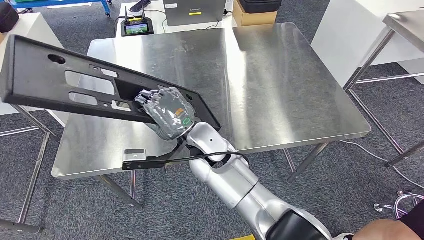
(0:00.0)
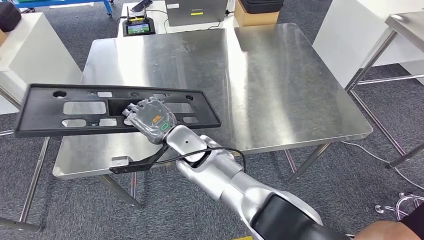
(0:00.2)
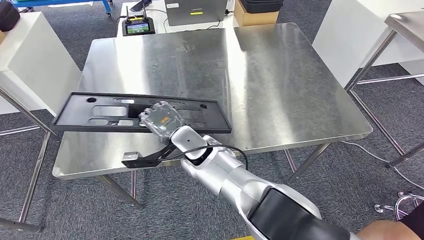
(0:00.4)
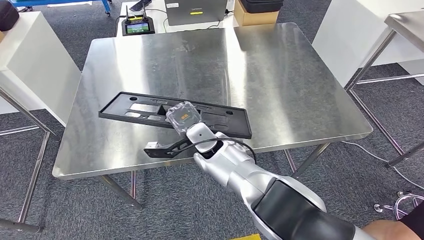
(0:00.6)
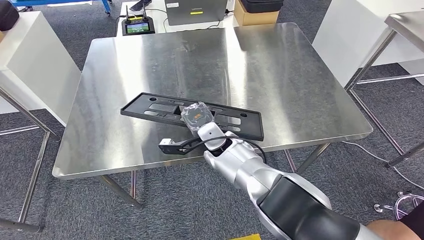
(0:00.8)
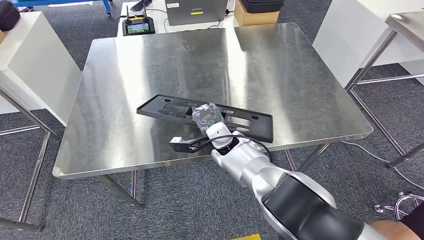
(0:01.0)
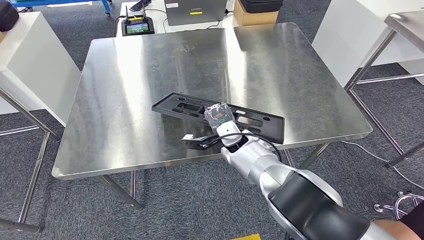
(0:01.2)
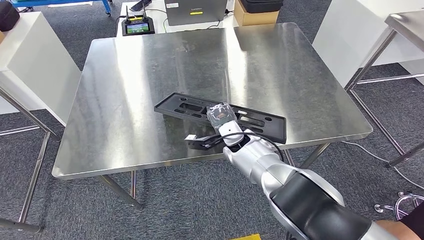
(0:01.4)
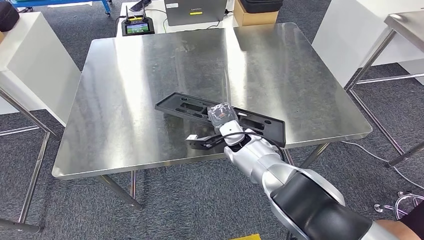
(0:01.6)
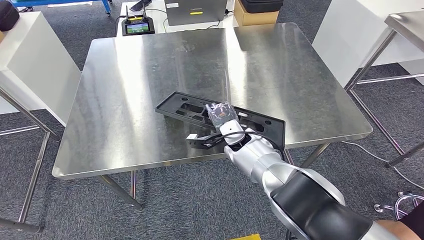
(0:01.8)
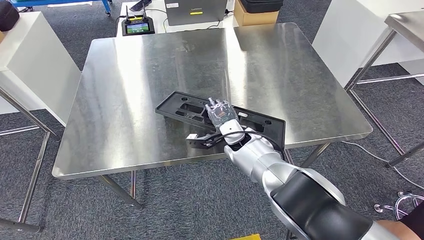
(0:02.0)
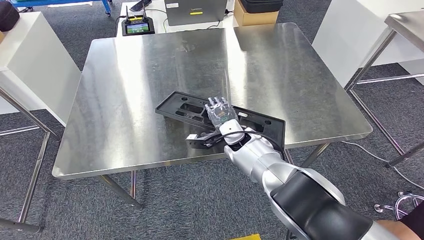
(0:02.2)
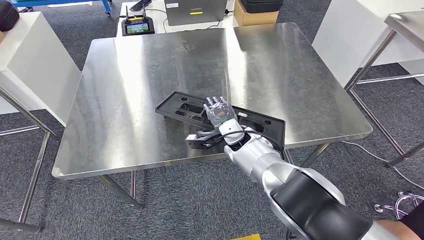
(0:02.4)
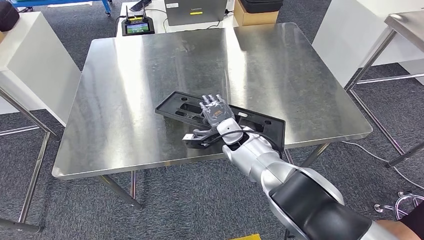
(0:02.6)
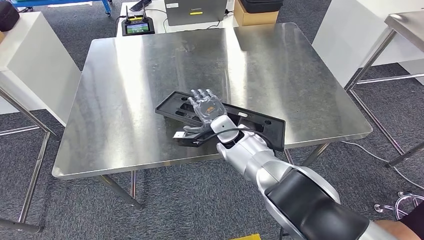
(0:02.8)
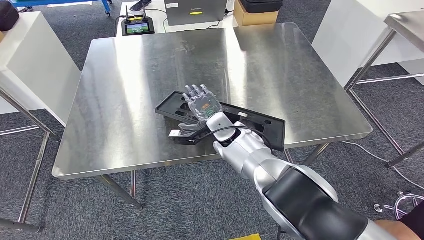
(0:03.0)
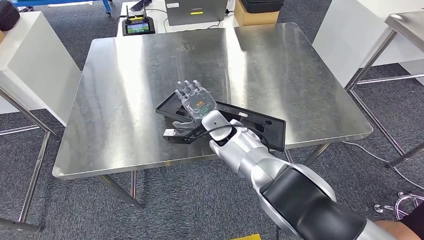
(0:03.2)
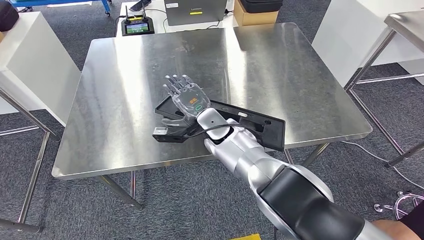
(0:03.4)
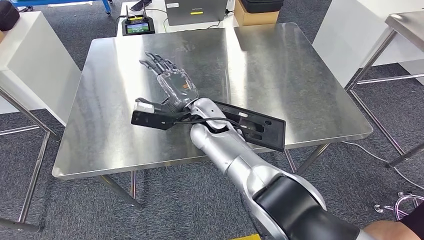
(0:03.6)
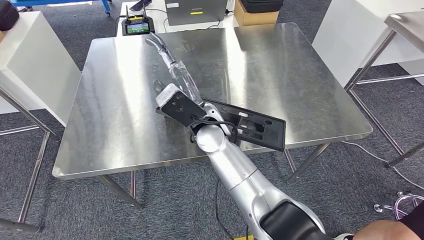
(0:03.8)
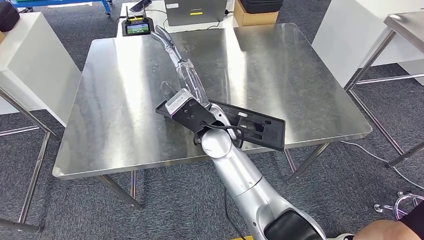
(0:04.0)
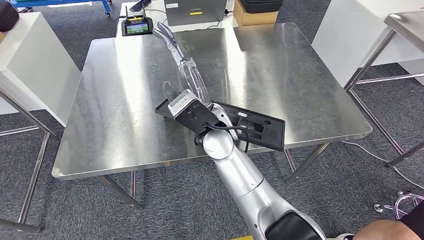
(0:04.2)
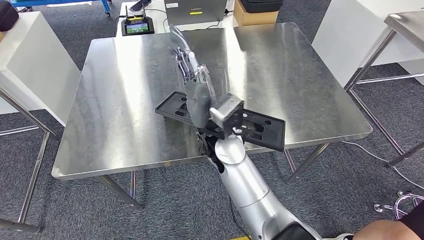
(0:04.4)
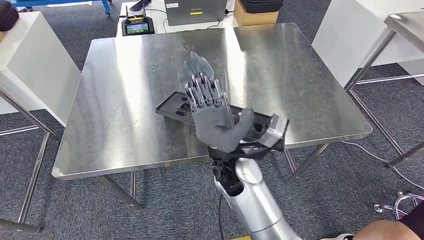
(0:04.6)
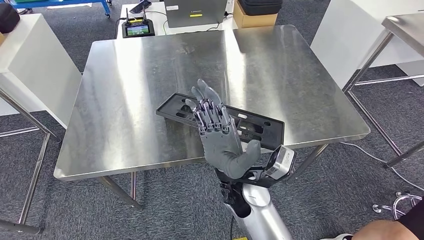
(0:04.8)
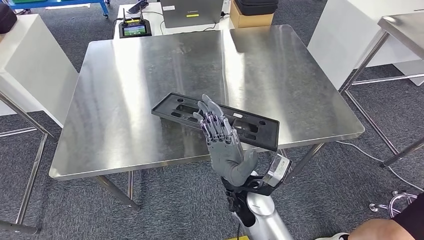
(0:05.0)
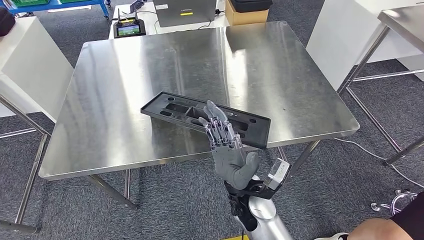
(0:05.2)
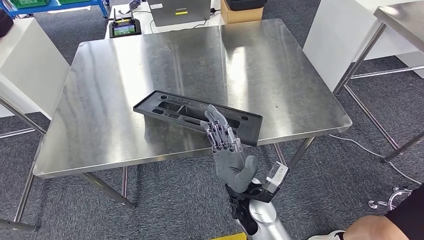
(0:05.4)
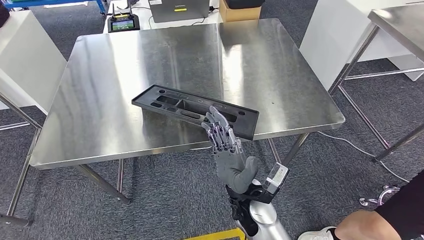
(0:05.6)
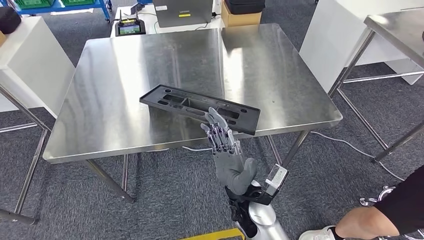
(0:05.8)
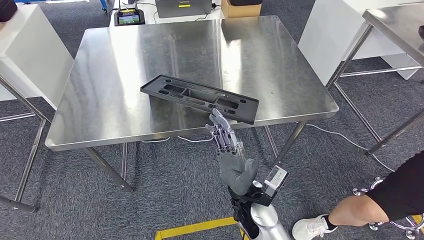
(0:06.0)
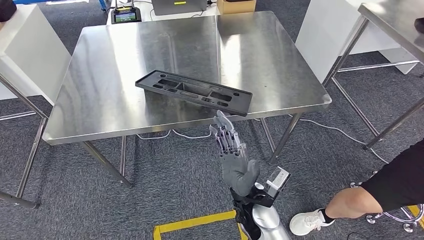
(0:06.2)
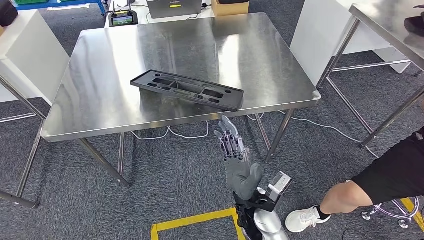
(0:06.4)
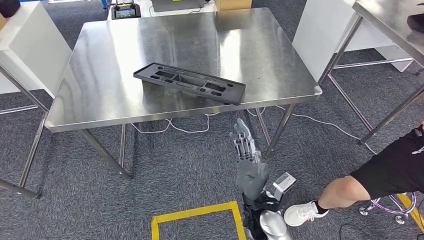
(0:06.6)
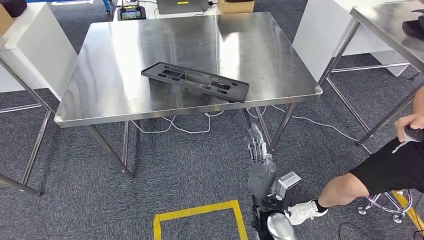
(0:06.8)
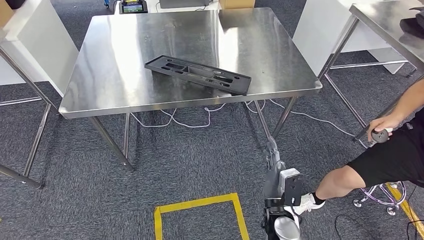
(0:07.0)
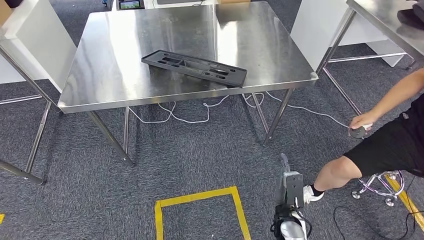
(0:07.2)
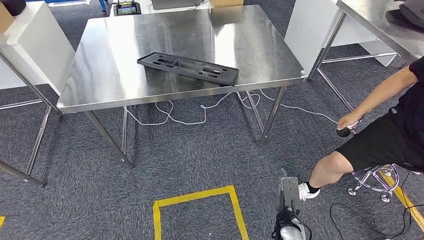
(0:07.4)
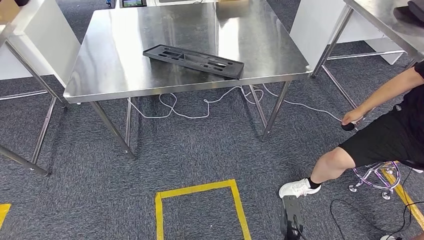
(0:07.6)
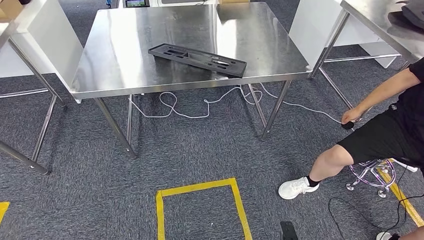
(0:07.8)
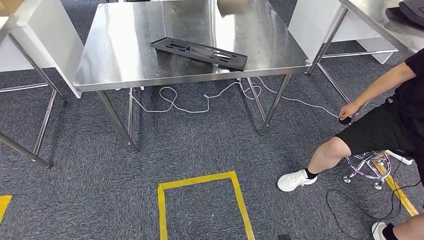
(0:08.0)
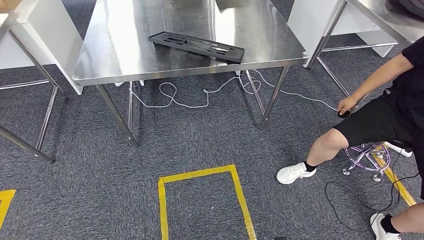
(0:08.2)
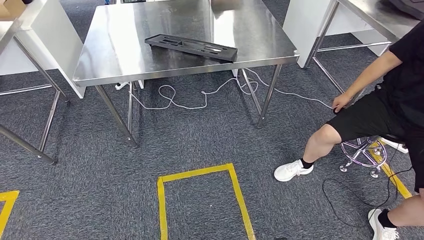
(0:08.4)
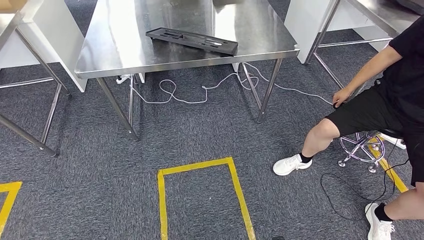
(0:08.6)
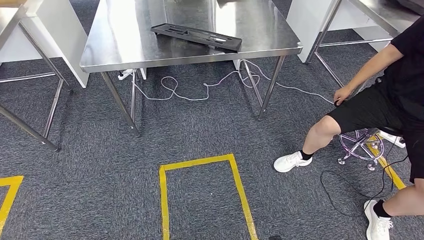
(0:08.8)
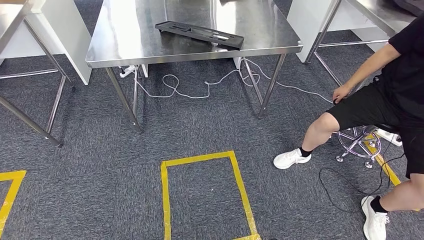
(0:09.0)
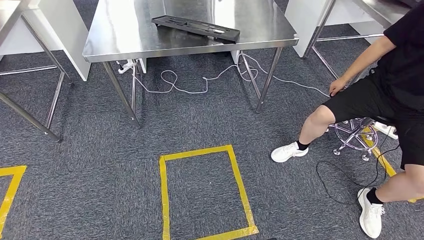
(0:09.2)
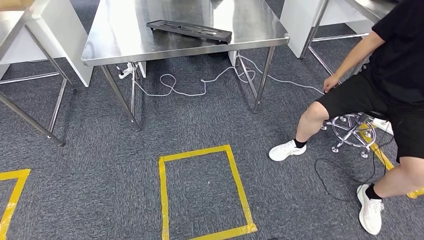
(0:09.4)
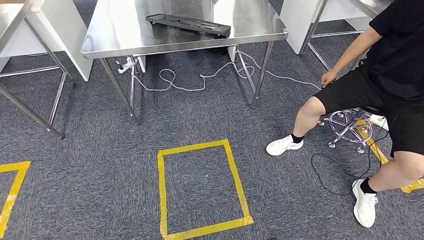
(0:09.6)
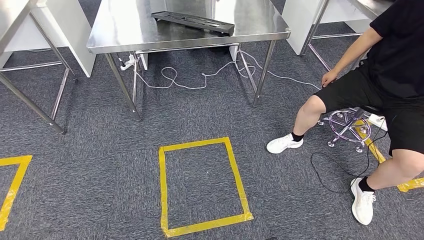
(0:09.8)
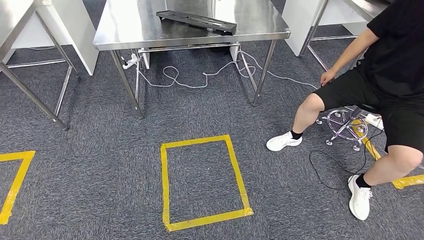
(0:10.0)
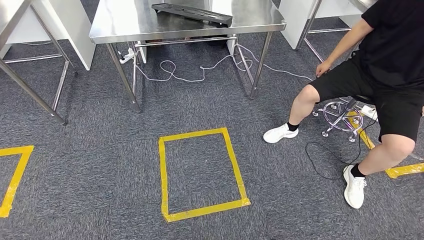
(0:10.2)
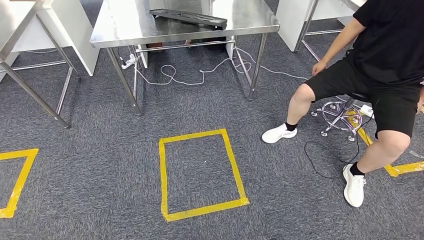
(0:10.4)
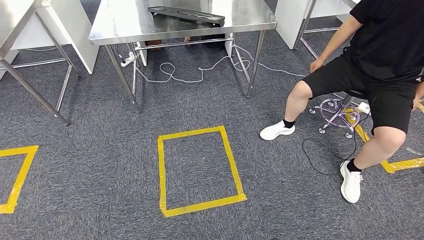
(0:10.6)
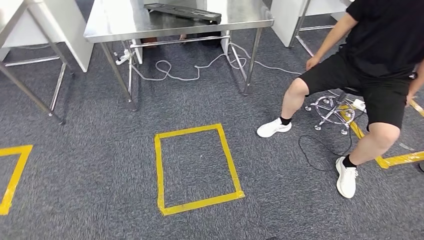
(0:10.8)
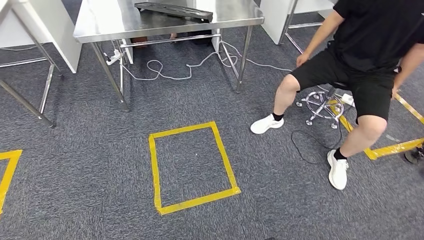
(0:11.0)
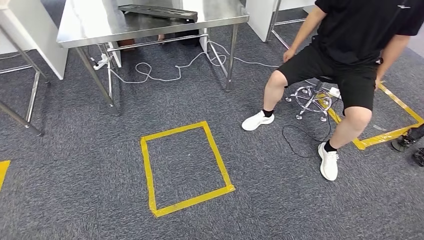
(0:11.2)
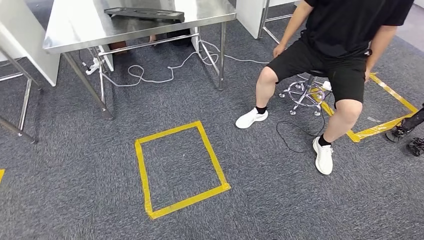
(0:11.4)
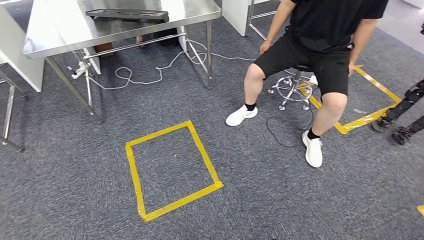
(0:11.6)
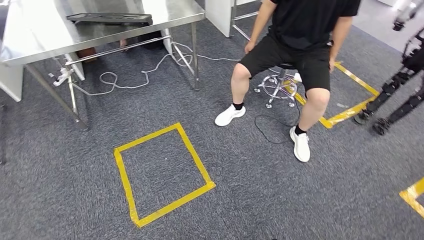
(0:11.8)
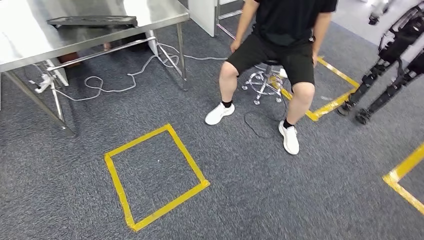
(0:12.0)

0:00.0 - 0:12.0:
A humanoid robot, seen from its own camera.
Step, 0:00.0 - 0:08.6: Insert the large material into the corresponding slot on the workbench.
0:01.6 - 0:03.0: The hands move only a little.
0:03.0 - 0:04.4: The right hand travels upward and backward by approximately 15 cm.

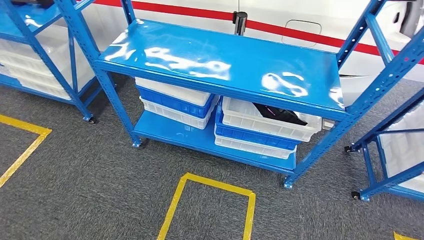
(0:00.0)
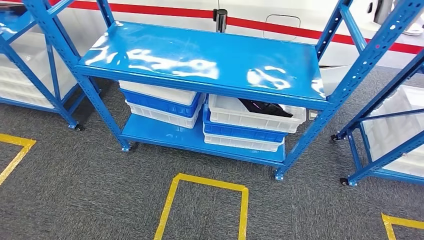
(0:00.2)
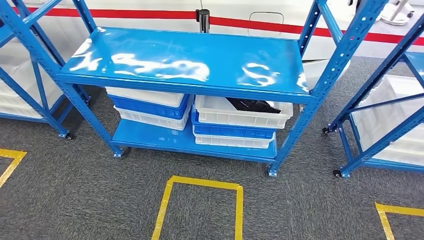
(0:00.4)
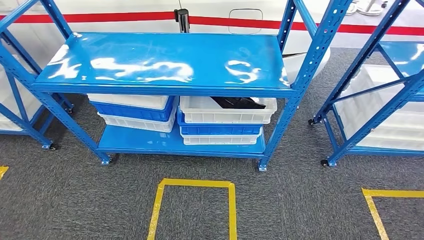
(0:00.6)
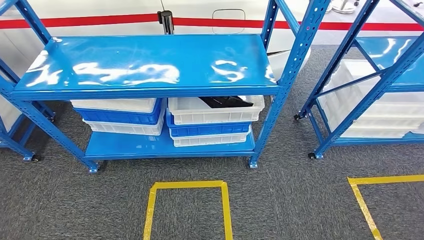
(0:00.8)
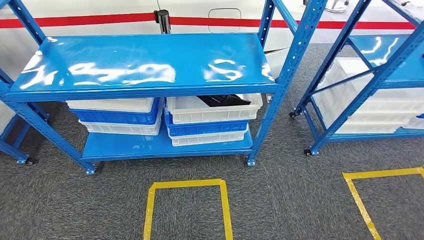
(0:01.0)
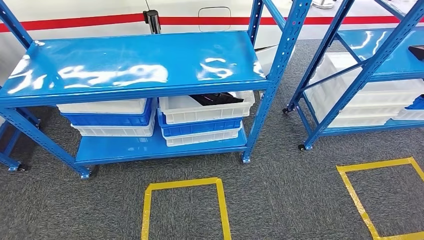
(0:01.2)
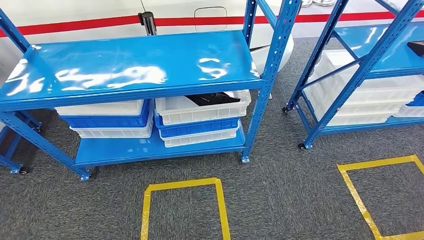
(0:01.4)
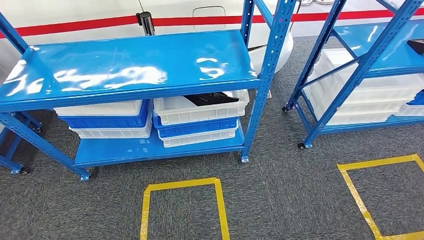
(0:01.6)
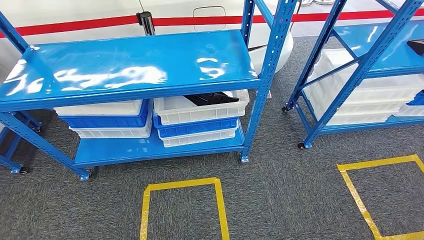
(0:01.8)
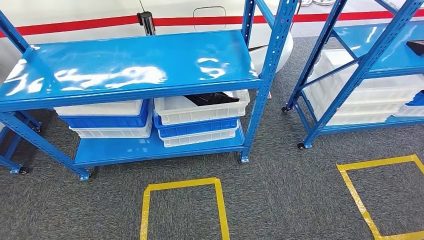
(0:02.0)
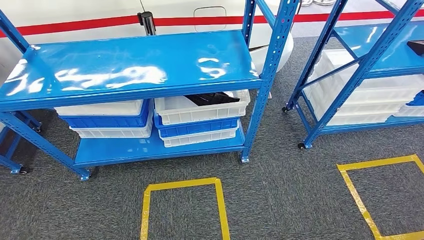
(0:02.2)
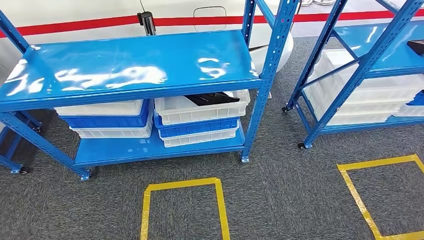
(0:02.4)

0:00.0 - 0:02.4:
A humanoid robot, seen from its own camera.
Step, 0:00.0 - 0:02.2: Move to the initial position of the shelf.

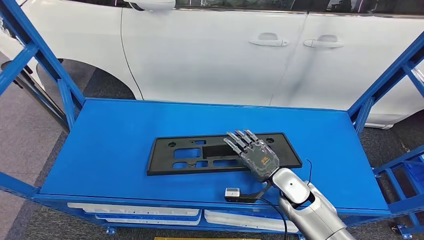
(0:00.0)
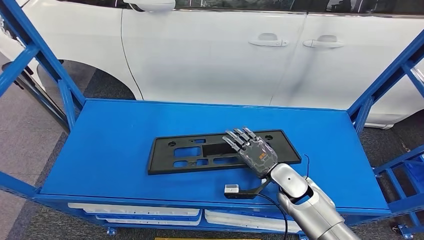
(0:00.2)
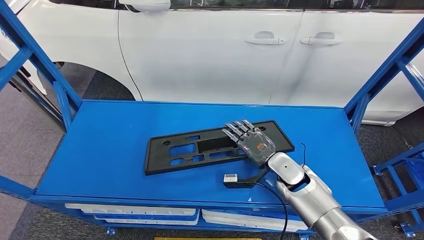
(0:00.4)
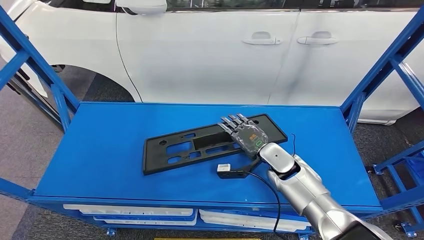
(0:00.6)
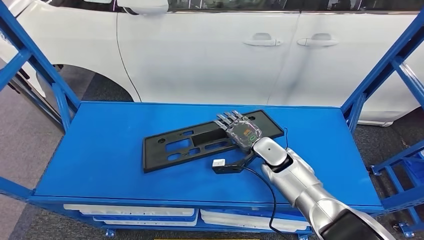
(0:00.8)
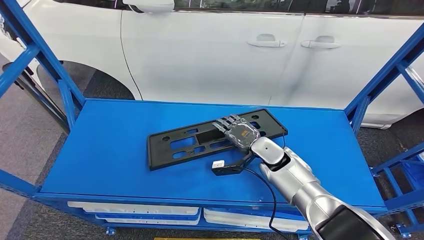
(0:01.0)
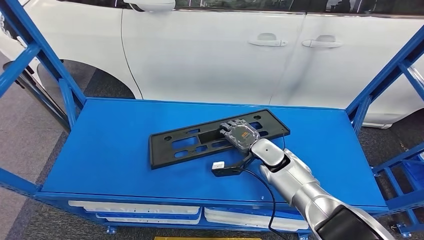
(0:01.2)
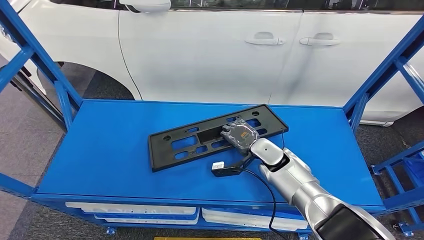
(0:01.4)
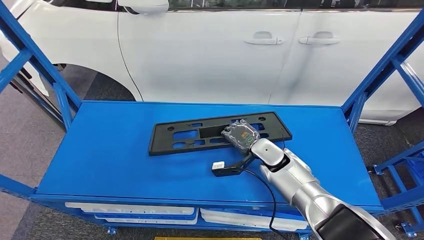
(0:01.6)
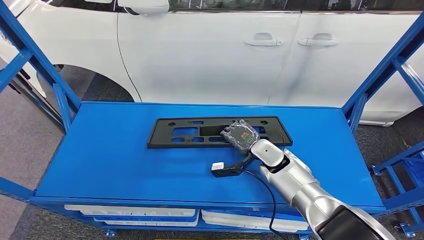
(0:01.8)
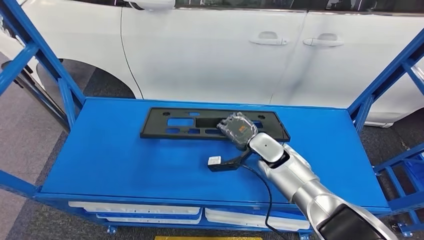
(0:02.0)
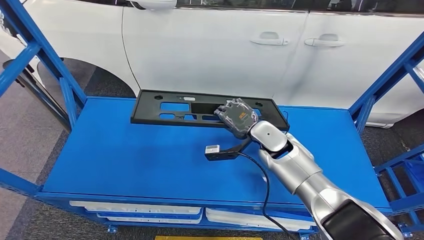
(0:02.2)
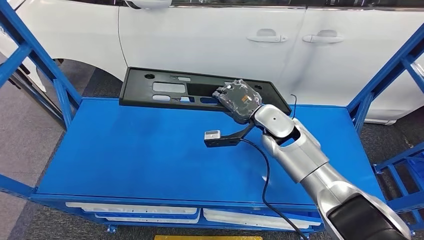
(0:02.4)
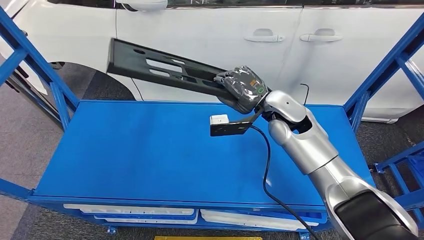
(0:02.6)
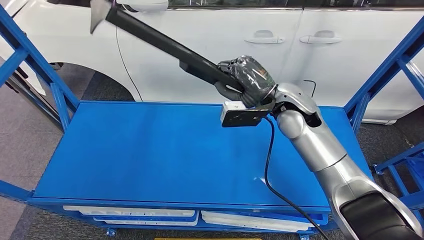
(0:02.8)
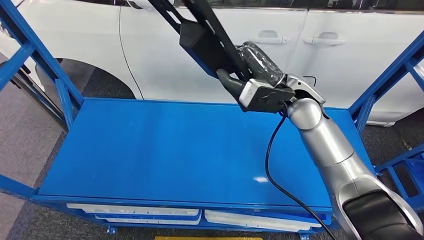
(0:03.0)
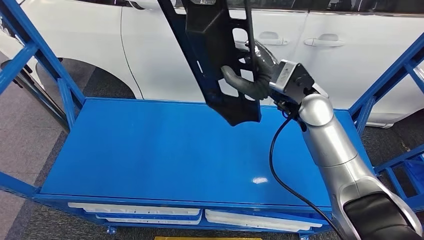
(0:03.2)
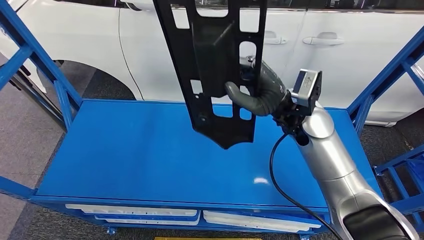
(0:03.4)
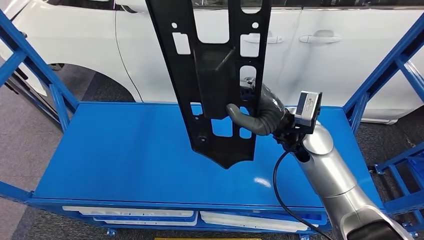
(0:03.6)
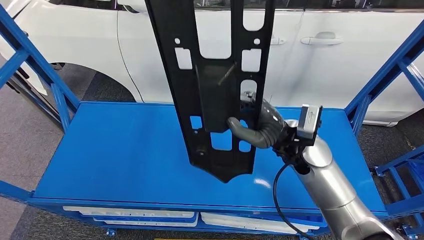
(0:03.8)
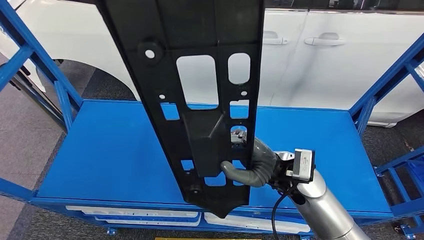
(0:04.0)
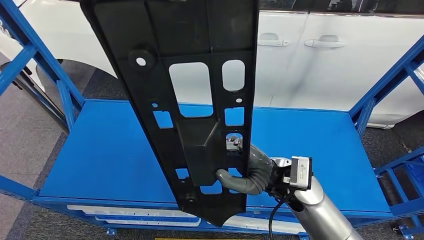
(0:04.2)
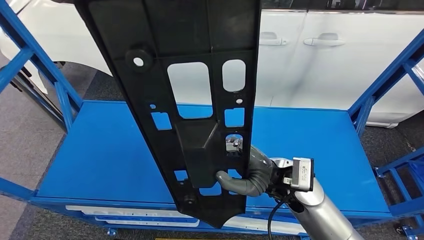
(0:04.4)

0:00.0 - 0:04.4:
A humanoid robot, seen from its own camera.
Step, 0:00.0 - 0:02.6: Pick up the large material from the shelf.
